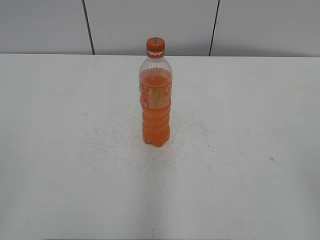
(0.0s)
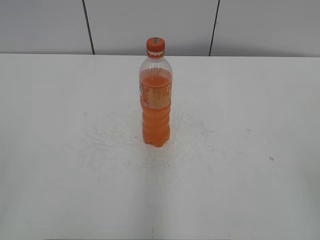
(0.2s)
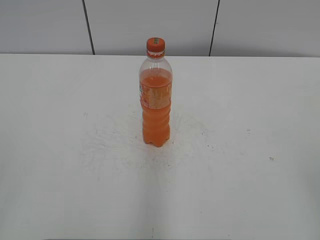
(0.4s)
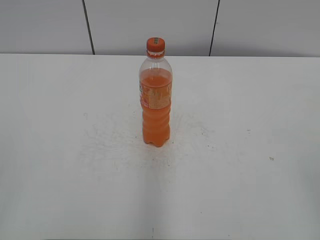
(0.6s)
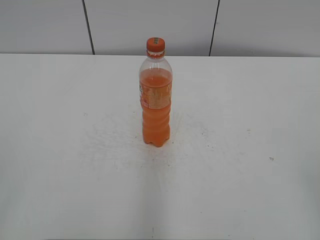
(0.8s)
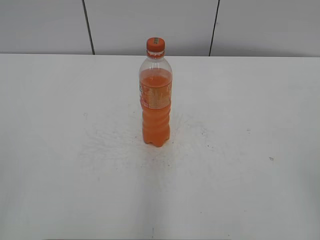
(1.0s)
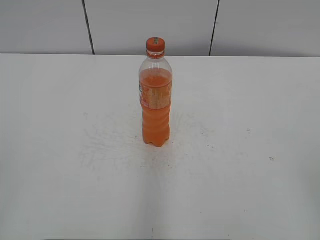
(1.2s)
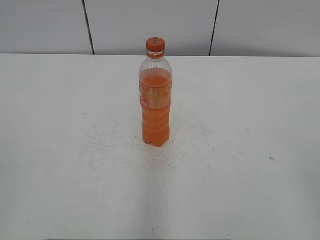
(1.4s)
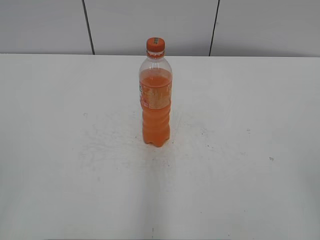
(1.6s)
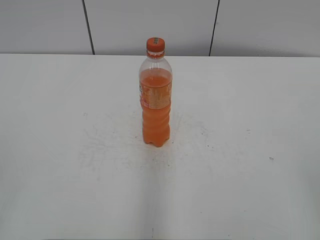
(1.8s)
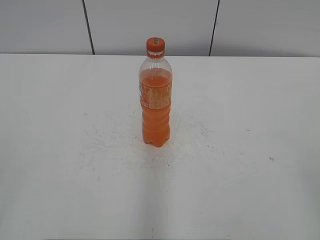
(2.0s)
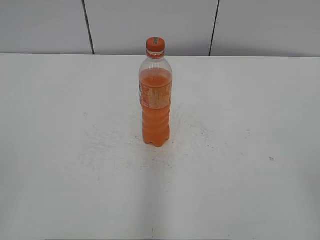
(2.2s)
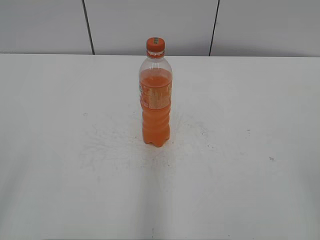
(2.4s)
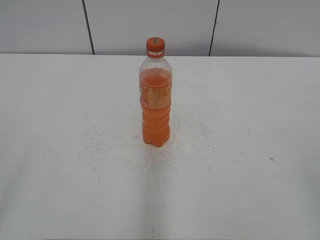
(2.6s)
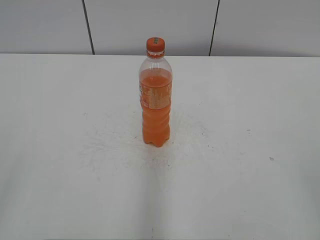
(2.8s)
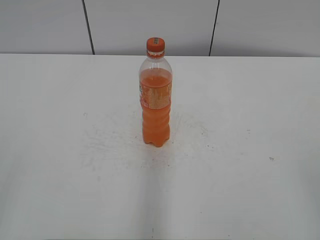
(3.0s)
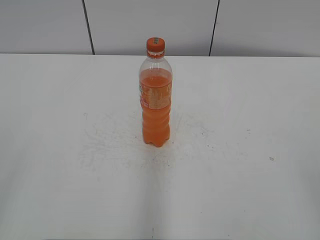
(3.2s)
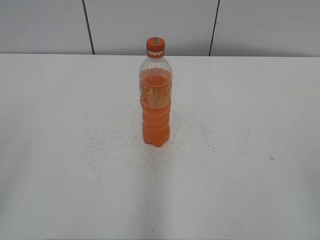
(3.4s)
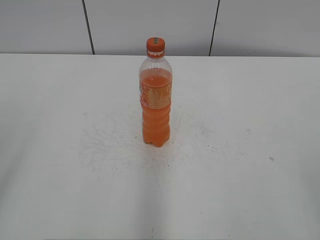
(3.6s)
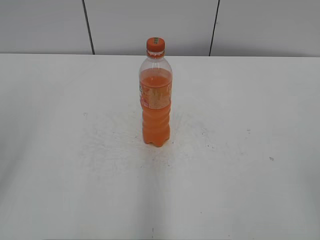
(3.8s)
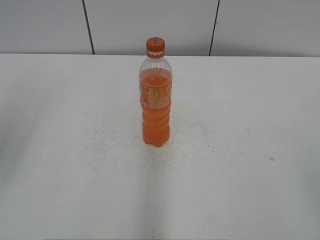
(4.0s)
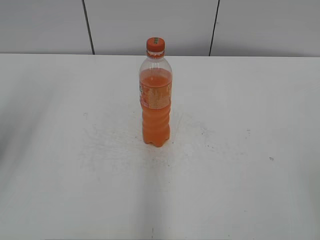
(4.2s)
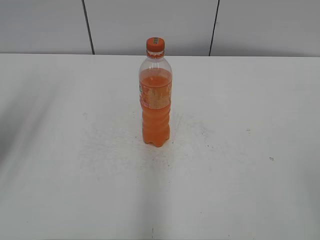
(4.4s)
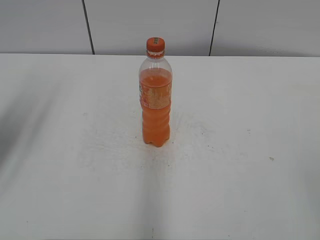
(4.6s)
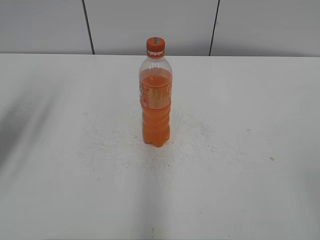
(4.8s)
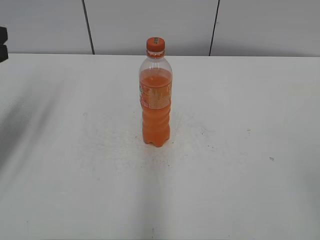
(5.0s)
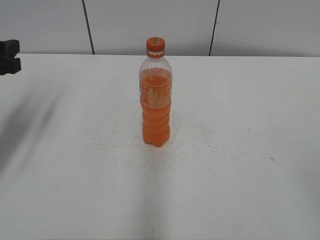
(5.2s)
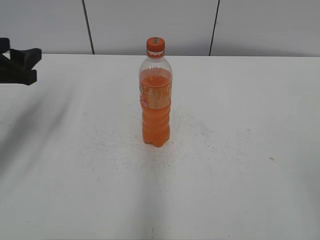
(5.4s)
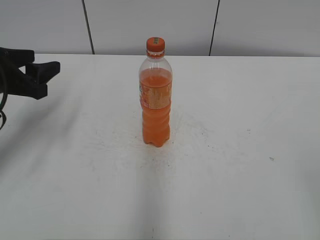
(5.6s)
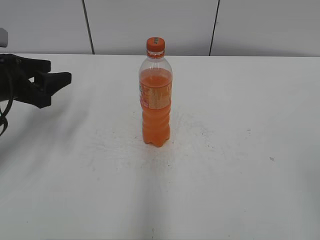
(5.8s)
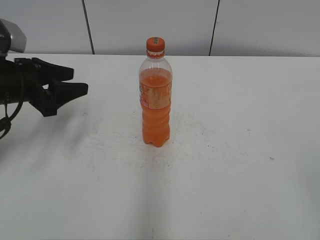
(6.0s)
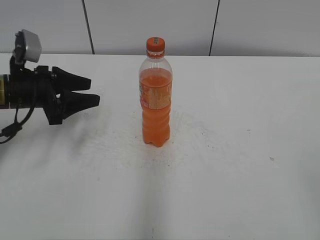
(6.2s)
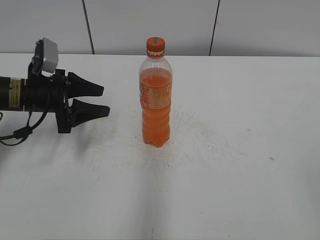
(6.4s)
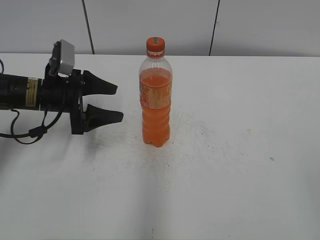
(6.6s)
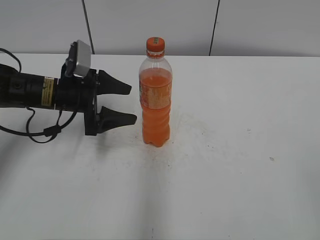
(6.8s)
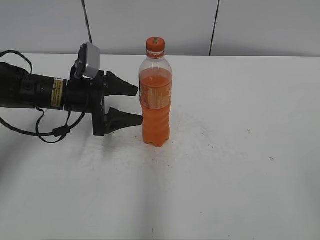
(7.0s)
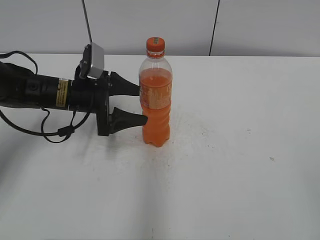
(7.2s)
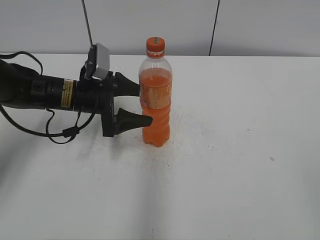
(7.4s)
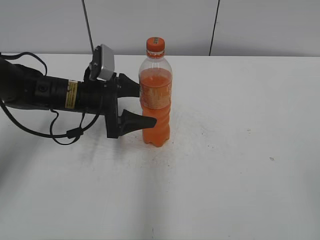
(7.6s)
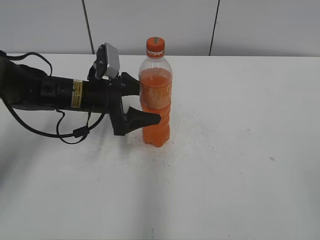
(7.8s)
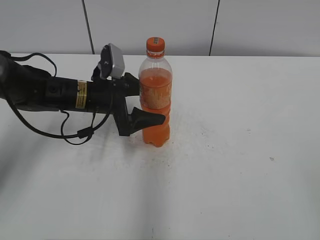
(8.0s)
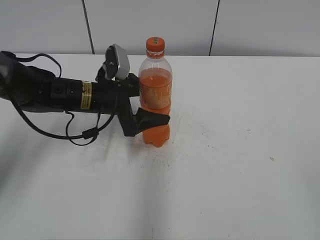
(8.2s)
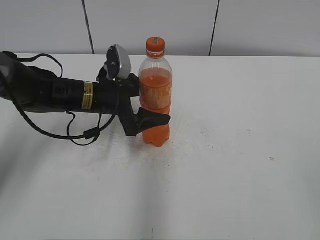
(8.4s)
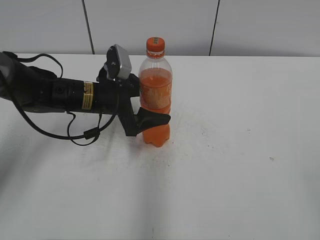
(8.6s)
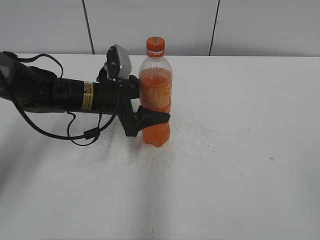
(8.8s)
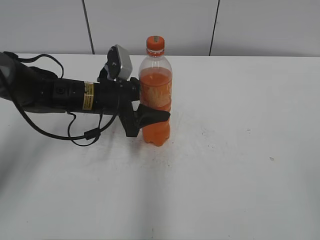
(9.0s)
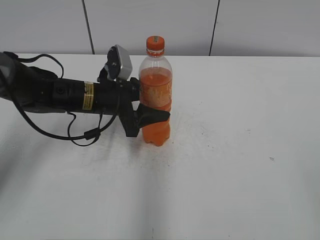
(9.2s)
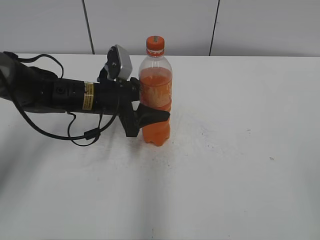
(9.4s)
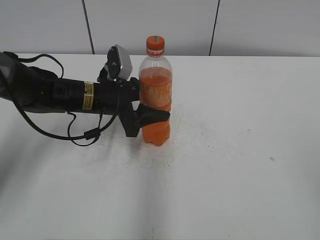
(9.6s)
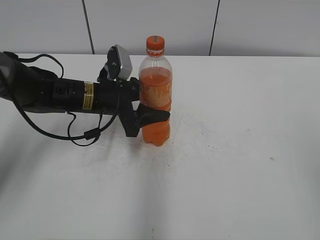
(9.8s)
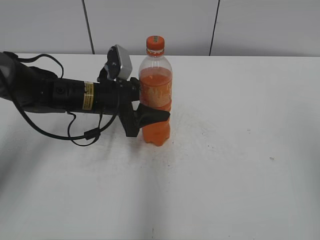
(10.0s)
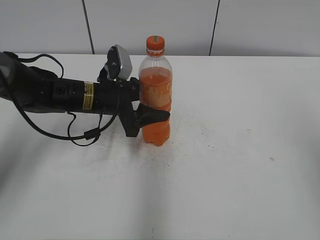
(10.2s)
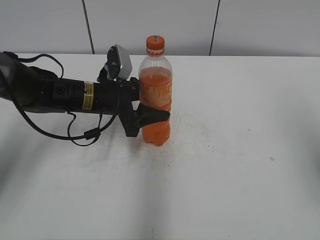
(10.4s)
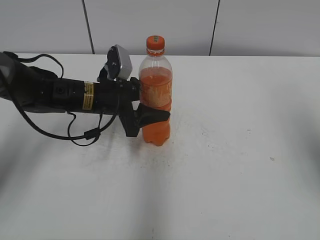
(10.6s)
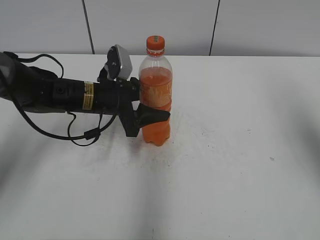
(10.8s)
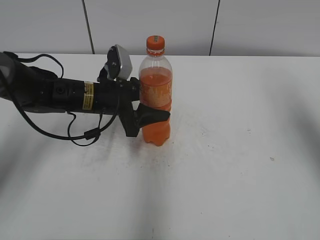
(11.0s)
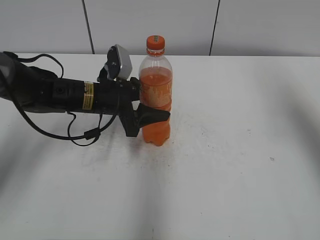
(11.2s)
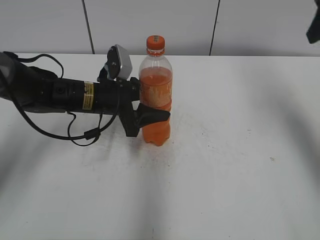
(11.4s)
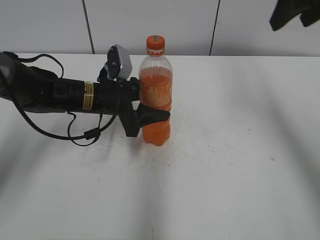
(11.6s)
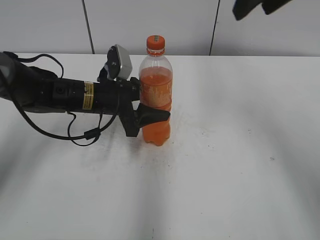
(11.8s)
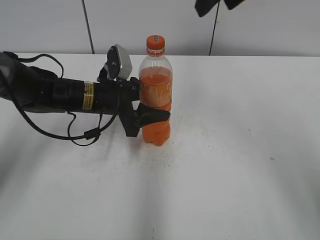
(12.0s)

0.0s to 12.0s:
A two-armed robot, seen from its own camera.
Step, 0.0s to 9.0s: Grab the Mirinda with the left hand.
3.0s to 4.4s: The left gripper travels forward by about 25 cm.
4.4s to 6.0s: The left gripper is displaced downward and forward by about 15 cm.
6.0s to 7.6s: The left gripper heads to the right and downward, covering about 15 cm, and opens up.
7.6s to 9.0s: The left gripper closes.
10.4s to 12.0s: The right gripper moves forward and to the left, about 25 cm.

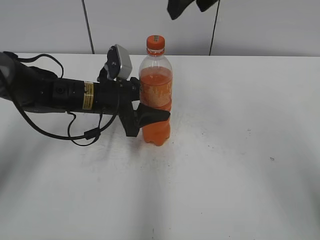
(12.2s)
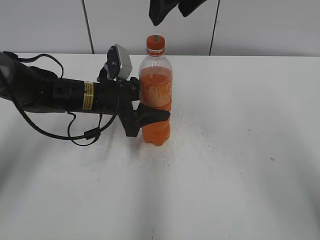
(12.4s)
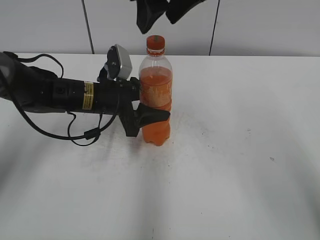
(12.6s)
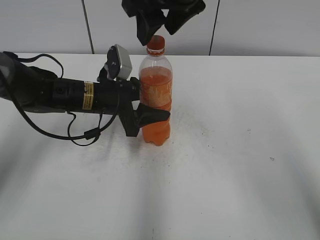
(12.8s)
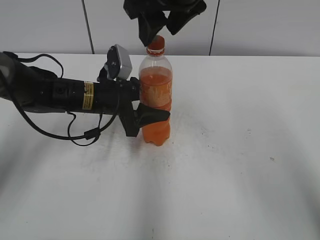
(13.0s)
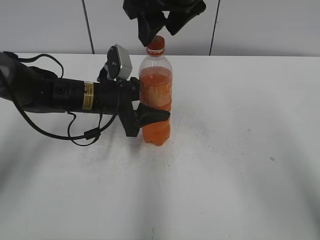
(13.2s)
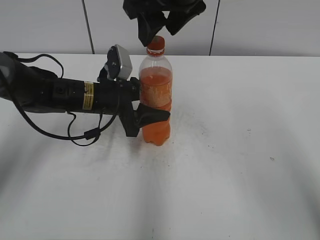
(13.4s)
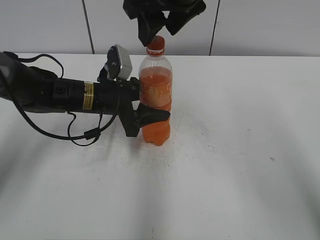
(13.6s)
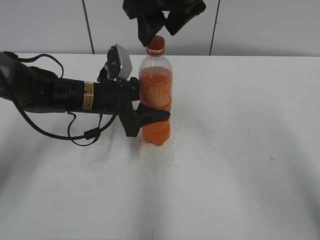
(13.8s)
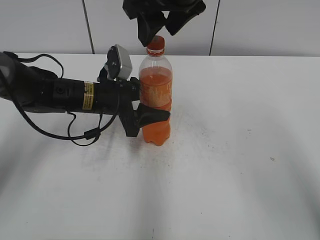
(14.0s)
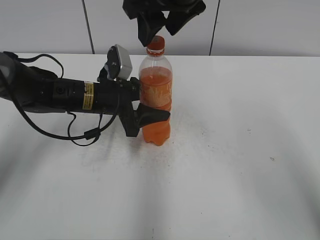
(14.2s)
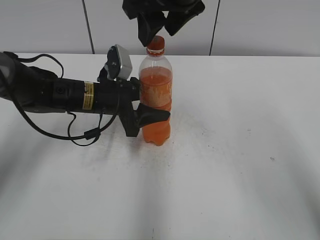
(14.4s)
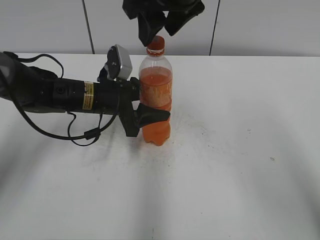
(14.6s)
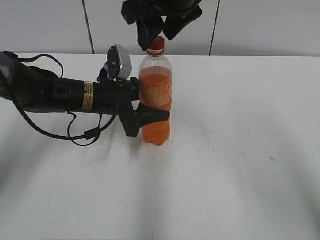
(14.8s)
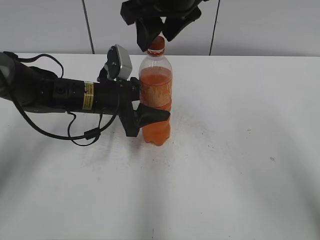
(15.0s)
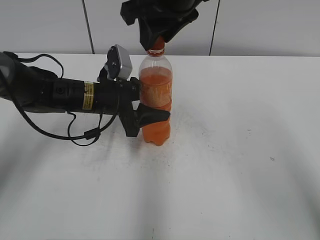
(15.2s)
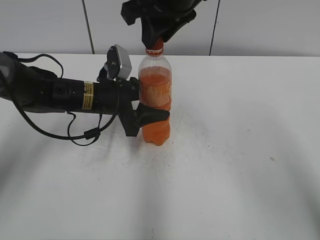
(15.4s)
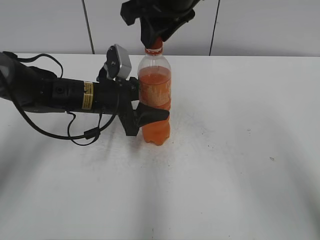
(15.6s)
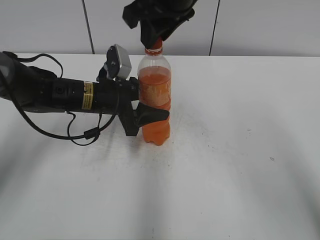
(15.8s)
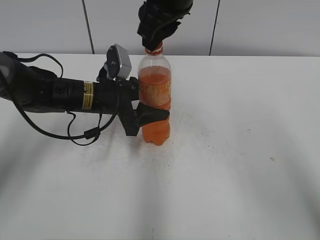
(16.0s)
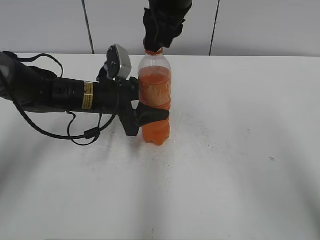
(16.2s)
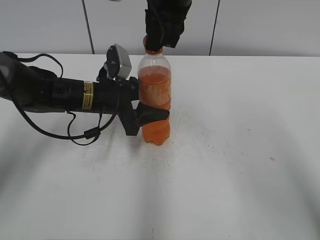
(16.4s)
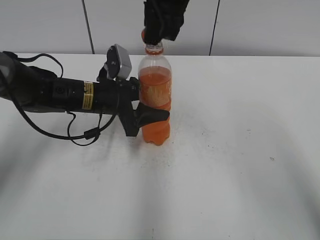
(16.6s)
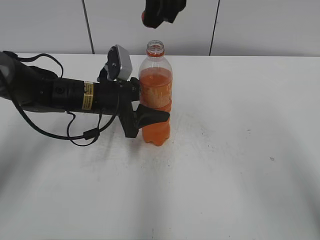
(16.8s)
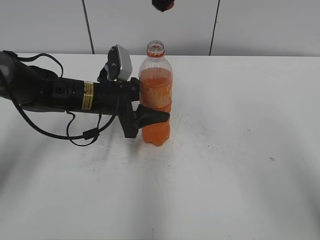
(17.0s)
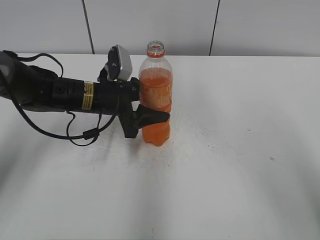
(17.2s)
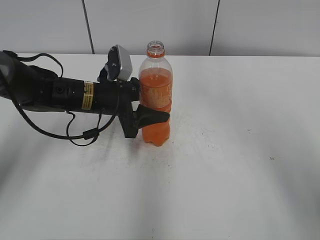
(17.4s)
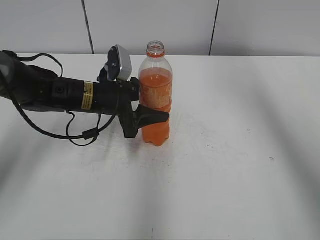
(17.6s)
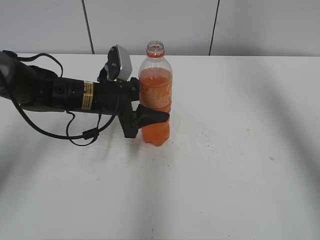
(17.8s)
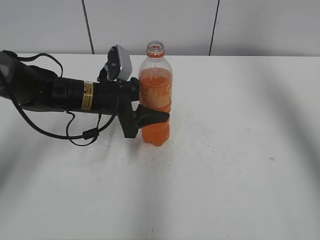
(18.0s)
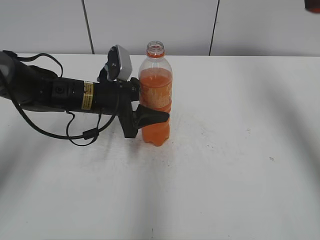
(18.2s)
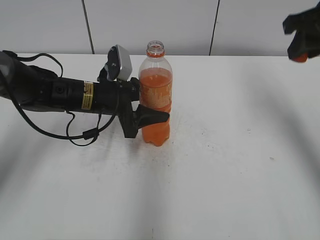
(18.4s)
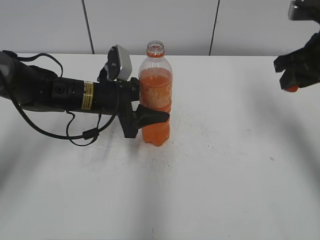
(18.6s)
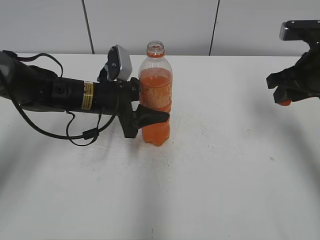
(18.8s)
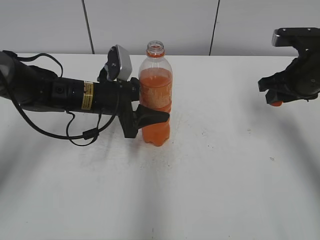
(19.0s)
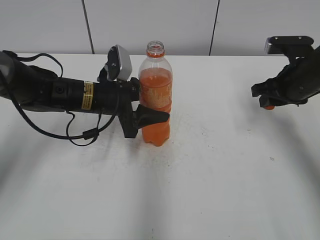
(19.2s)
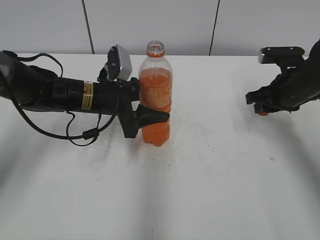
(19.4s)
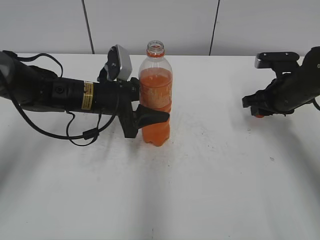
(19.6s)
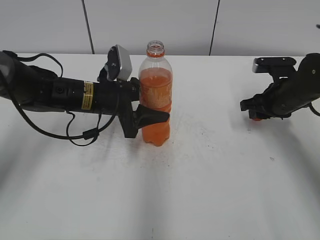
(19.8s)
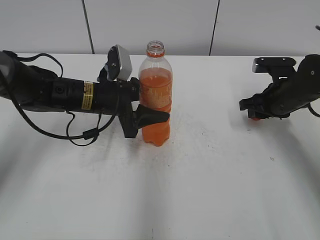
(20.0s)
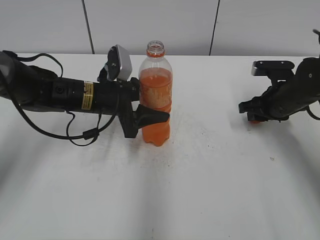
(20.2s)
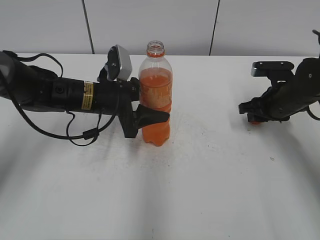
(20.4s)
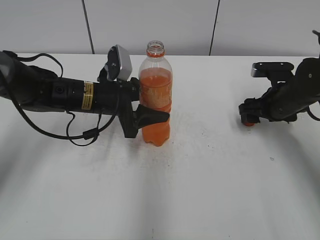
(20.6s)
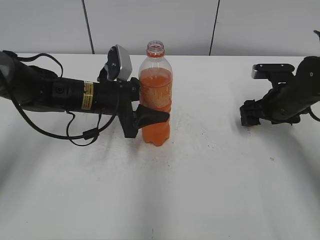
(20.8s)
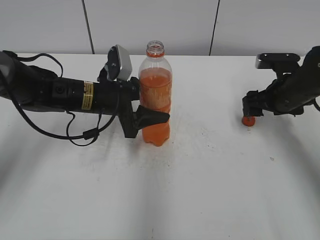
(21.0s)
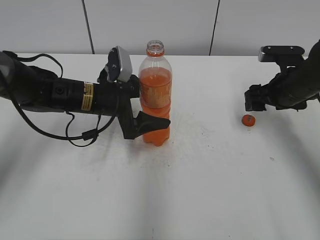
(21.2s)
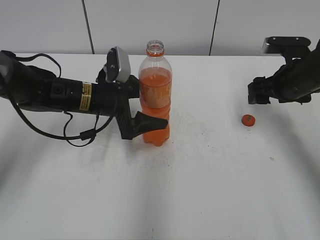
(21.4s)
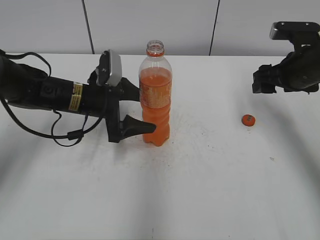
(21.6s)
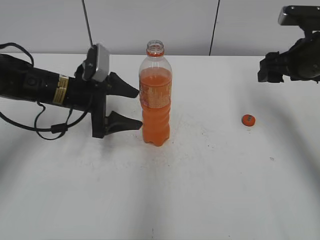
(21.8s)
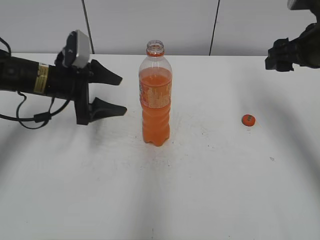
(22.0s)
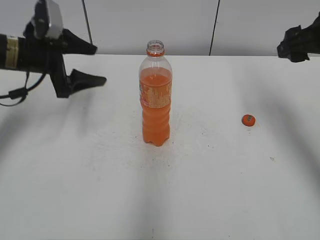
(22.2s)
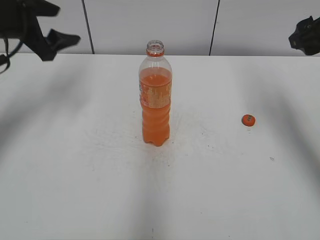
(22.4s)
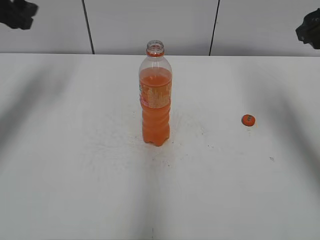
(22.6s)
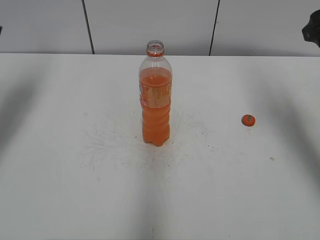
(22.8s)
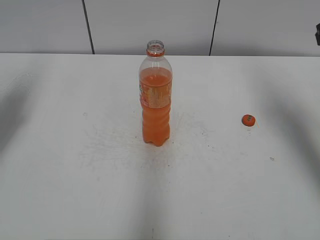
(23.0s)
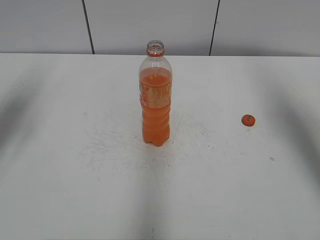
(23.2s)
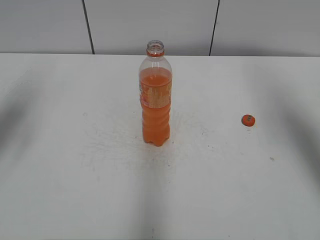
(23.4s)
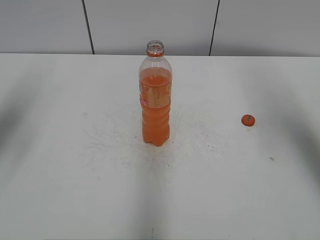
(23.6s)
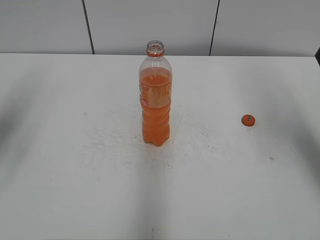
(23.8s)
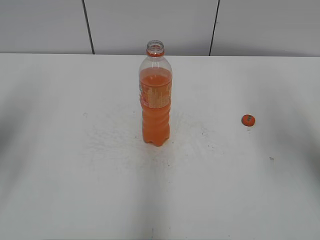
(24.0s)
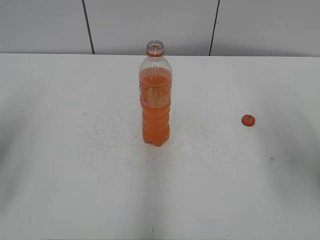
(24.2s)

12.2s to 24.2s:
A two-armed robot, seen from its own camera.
Step, 16.6s to 20.6s: Place the bottle cap on the right.
12.2s to 13.8s: The right gripper shifts some 5 cm to the left.
13.8s to 15.2s: Both grippers stay put.
16.6s to 18.2s: The right gripper heads to the right, covering about 25 cm.
18.2s to 19.8s: The right gripper shifts some 25 cm downward.
19.8s to 21.2s: The right gripper opens up, while the left gripper opens its fingers.
21.2s to 22.6s: The right gripper is displaced upward by about 15 cm; the left gripper moves to the left and upward, about 25 cm.
22.6s to 24.2s: The right gripper goes approximately 10 cm backward; the left gripper goes some 20 cm backward.
